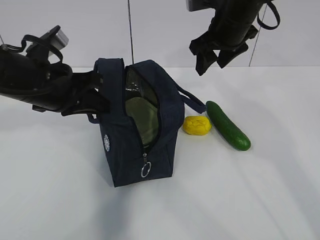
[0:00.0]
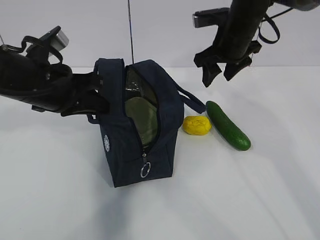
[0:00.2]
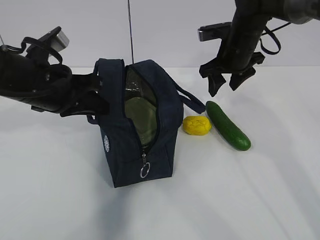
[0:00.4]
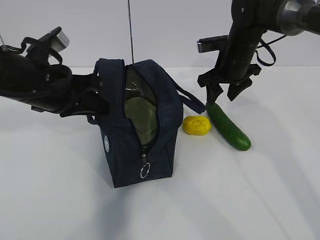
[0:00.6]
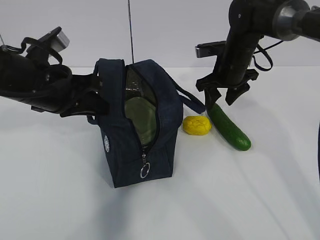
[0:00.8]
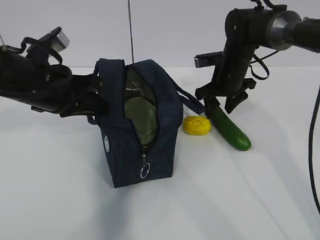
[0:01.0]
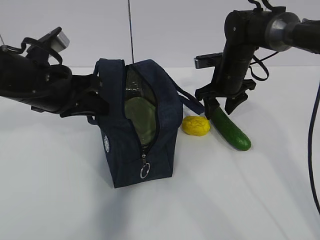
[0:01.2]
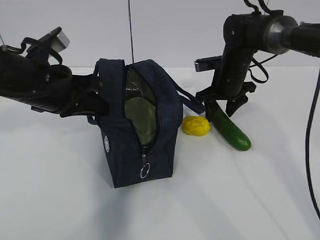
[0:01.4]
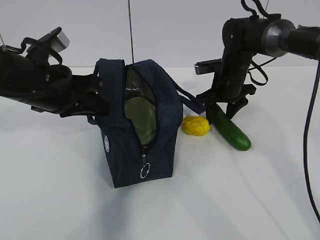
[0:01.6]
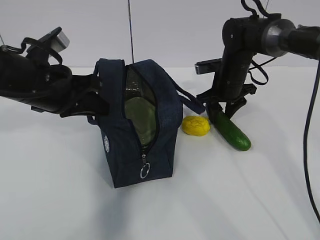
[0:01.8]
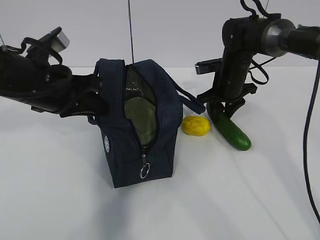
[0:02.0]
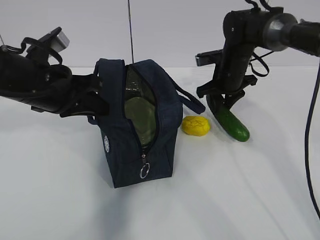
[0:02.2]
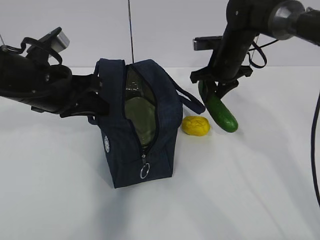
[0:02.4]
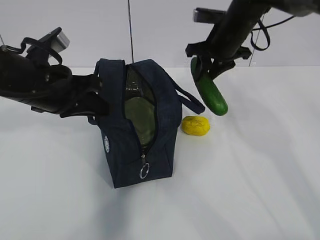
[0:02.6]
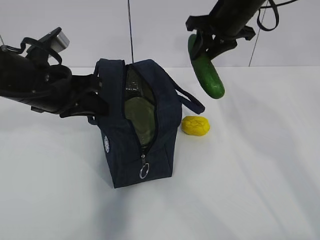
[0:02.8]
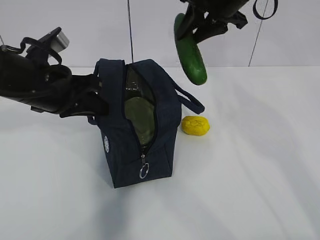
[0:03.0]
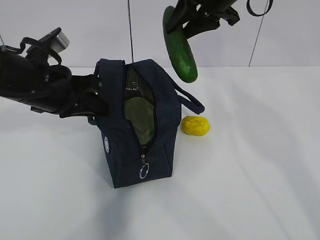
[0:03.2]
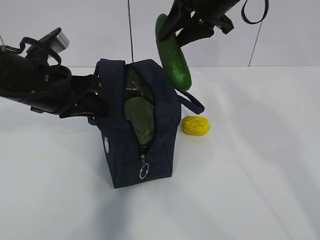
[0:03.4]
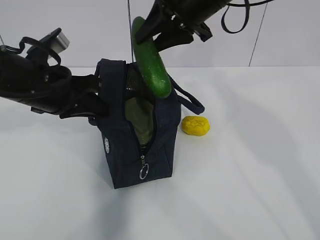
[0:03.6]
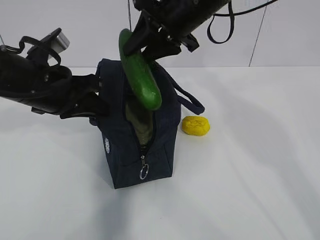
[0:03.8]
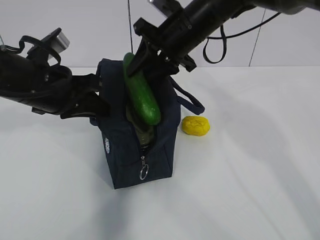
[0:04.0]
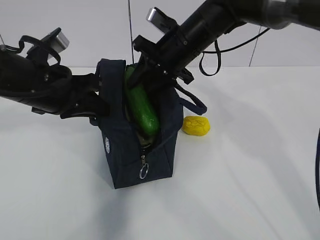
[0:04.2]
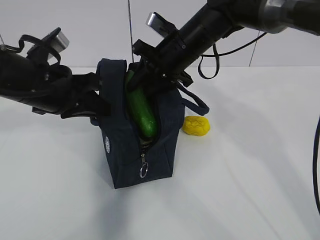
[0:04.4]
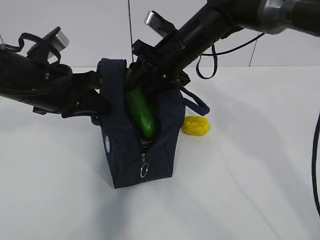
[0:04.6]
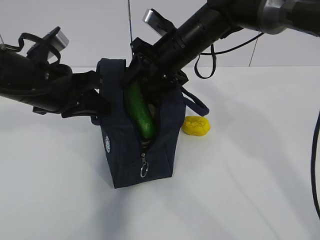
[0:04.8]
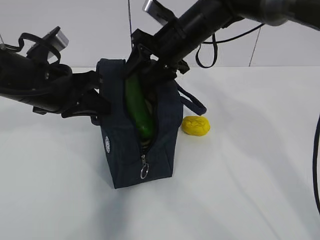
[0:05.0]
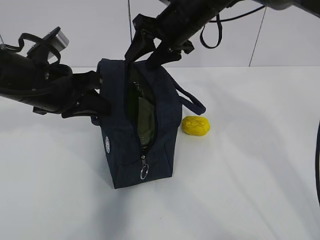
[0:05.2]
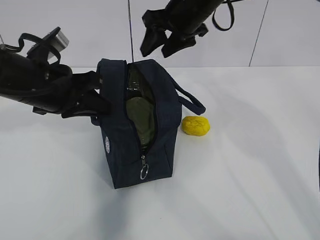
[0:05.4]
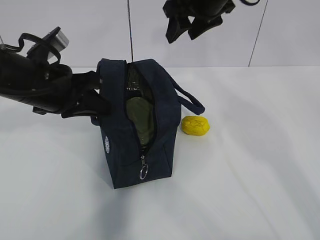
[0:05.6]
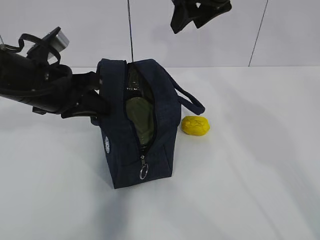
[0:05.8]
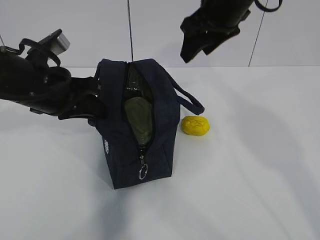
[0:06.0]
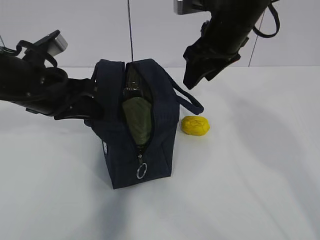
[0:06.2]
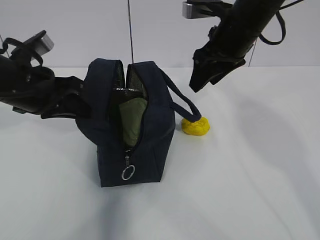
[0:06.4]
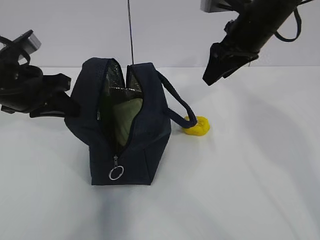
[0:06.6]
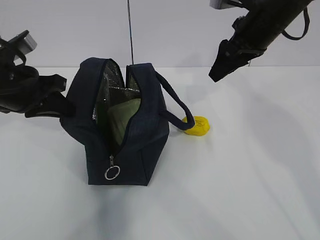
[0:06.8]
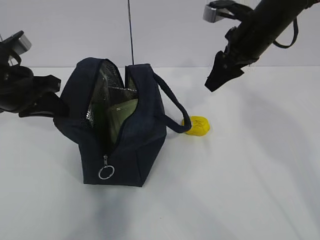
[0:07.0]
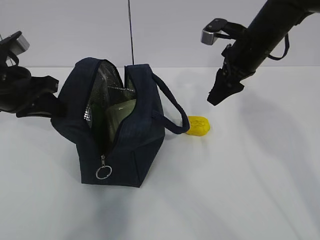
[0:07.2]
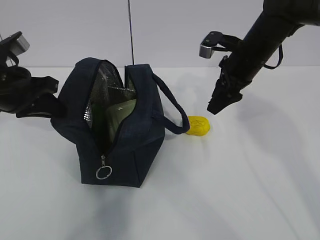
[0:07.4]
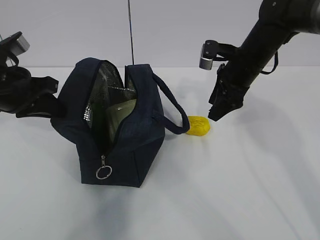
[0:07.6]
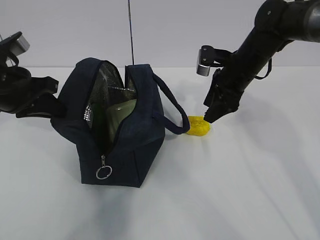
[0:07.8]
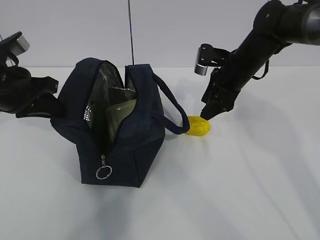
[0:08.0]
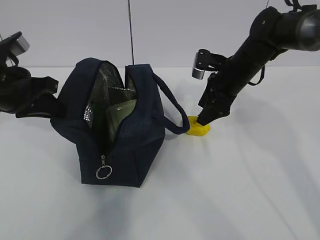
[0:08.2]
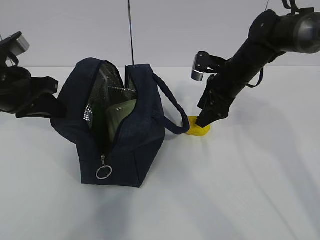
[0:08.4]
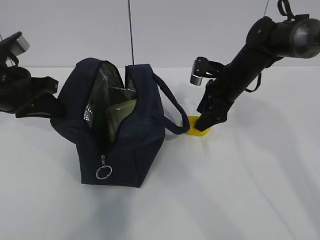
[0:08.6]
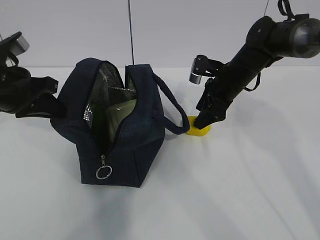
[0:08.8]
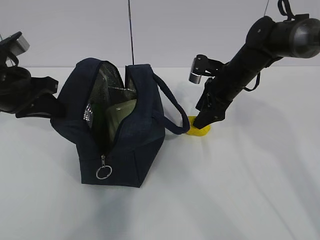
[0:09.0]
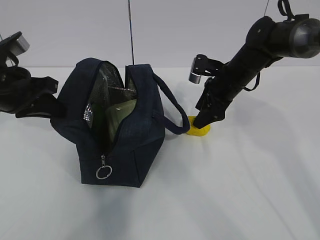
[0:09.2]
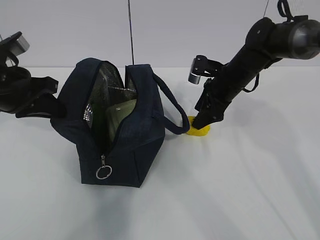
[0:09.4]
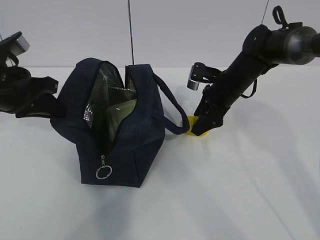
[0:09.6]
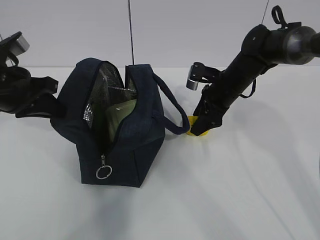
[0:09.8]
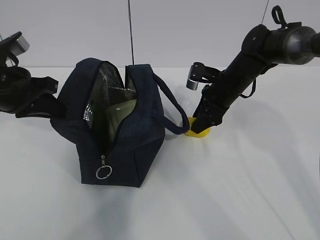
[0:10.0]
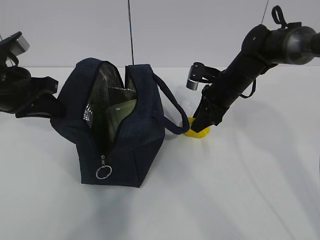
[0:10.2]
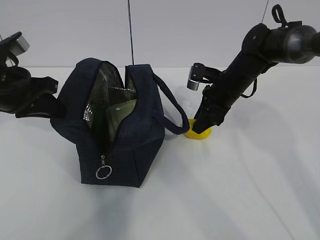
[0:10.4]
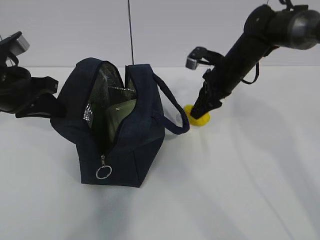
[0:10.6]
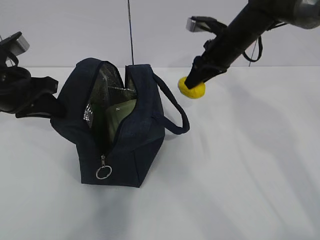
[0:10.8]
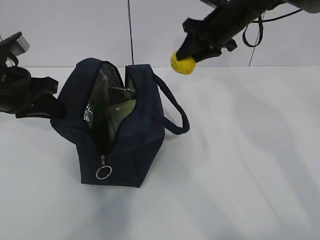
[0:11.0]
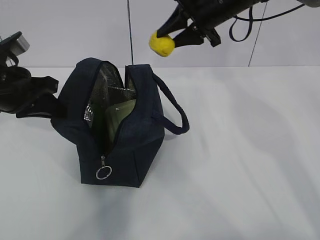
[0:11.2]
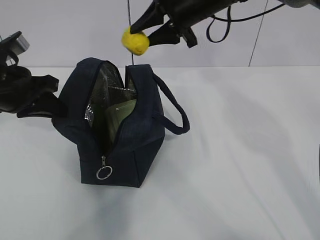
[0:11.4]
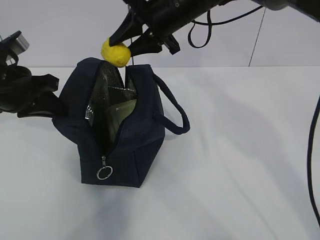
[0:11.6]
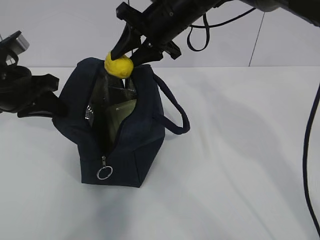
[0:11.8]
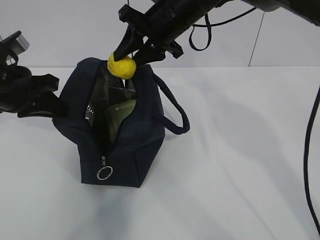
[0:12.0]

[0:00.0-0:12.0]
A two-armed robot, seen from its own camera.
Step, 0:00.6 to 0:04.4: Grab the lemon with your right hand.
Step, 0:04.6 to 0:06.6: Secure the lunch bag with your left hand.
Step, 0:06.8 to 0:08.0: Grab the lunch bag with your right hand.
Step, 0:08.2 to 0:10.8: Move the lunch bag to the right.
0:00.0 to 0:01.6: The right gripper heads downward, covering about 15 cm.
0:01.6 to 0:03.0: The right gripper heads upward, covering roughly 20 cm.
0:03.0 to 0:04.4: The right gripper moves downward and to the left, about 10 cm.
0:04.4 to 0:06.0: The right gripper is displaced upward and to the right by approximately 10 cm.
0:06.0 to 0:07.6: The right gripper shifts about 15 cm downward and to the right; the left gripper heads to the left, covering about 5 cm.
0:07.6 to 0:09.0: The right gripper goes some 5 cm downward.
0:09.0 to 0:10.4: The right gripper closes.
0:10.4 to 0:12.0: The right gripper travels upward and to the left by some 20 cm.

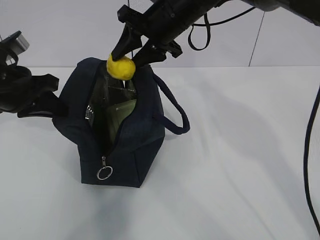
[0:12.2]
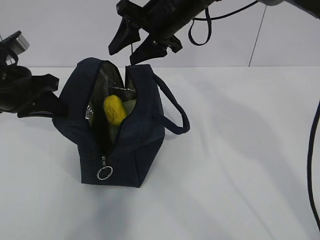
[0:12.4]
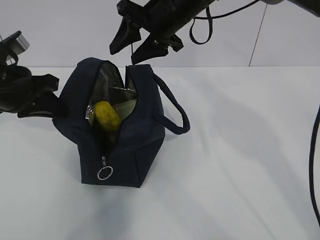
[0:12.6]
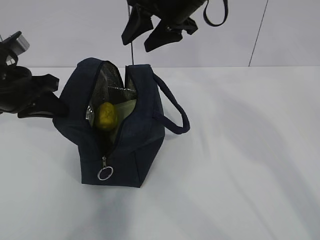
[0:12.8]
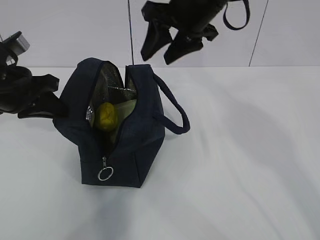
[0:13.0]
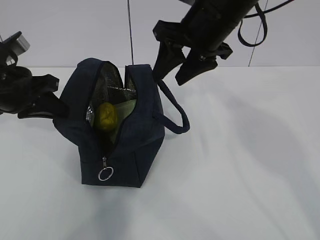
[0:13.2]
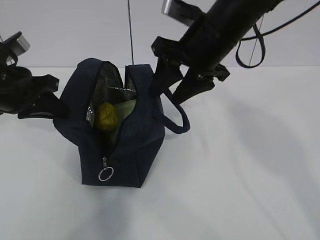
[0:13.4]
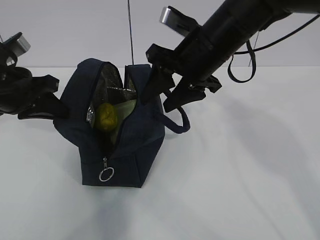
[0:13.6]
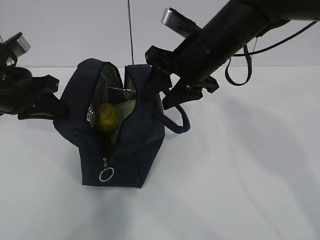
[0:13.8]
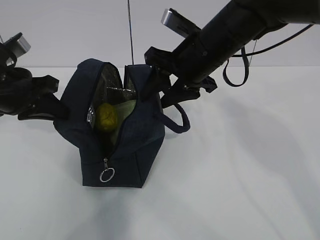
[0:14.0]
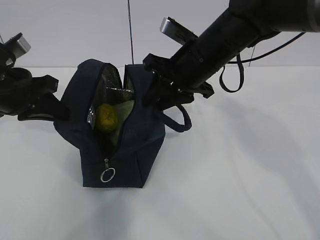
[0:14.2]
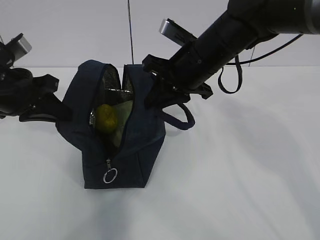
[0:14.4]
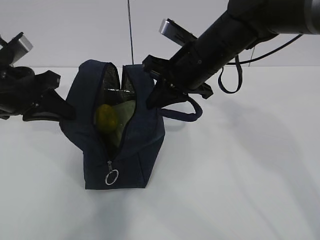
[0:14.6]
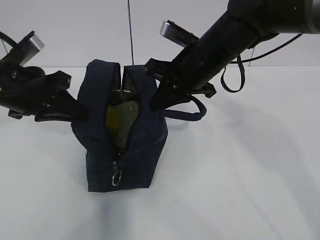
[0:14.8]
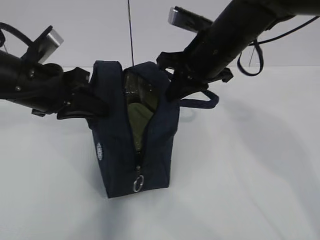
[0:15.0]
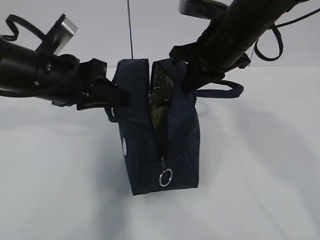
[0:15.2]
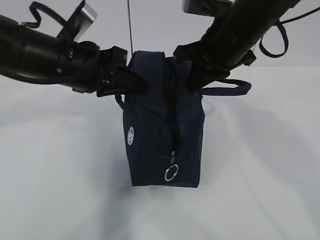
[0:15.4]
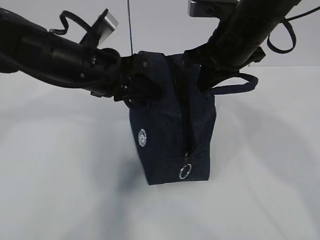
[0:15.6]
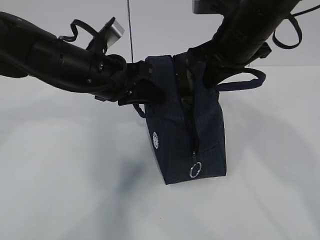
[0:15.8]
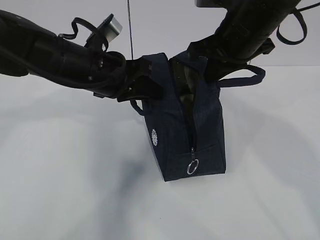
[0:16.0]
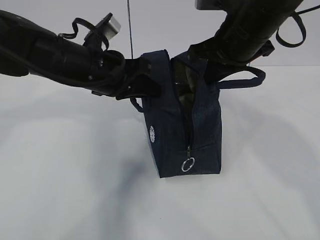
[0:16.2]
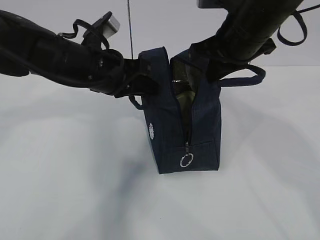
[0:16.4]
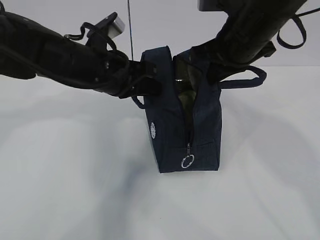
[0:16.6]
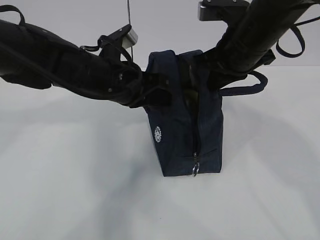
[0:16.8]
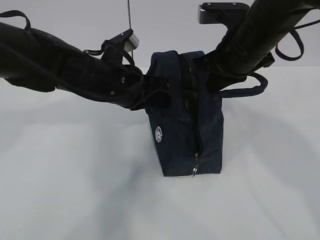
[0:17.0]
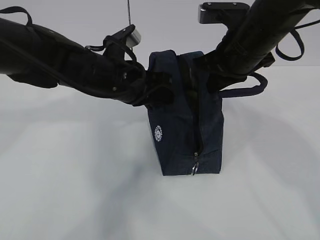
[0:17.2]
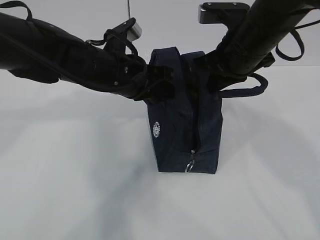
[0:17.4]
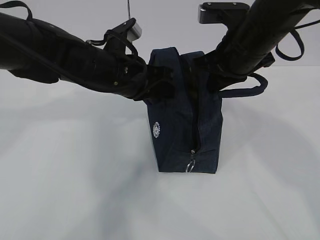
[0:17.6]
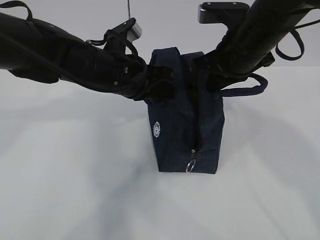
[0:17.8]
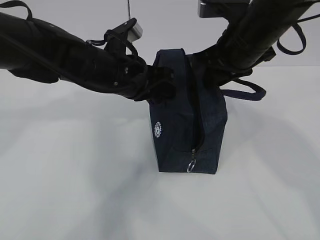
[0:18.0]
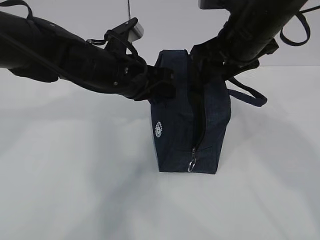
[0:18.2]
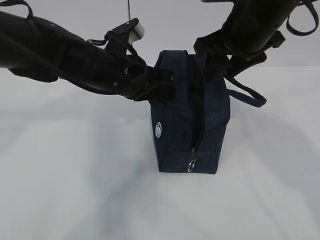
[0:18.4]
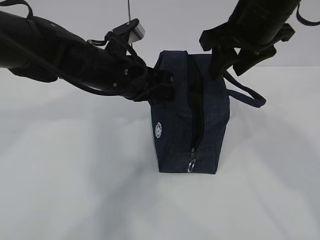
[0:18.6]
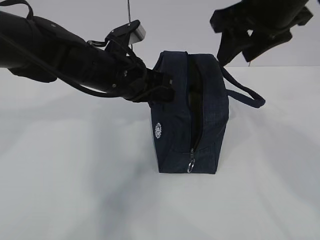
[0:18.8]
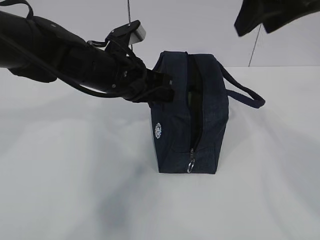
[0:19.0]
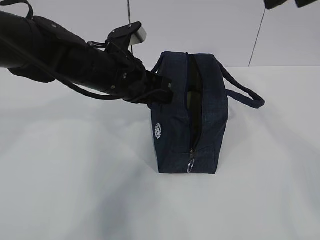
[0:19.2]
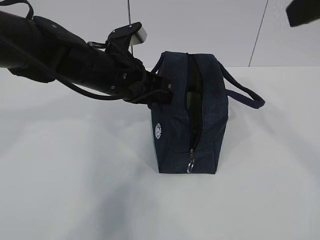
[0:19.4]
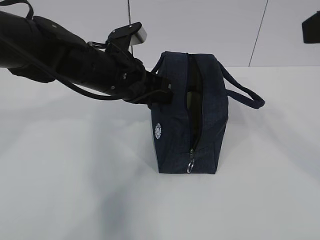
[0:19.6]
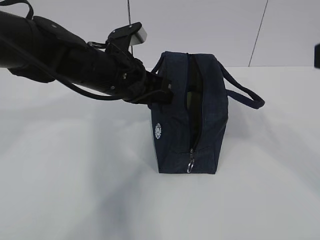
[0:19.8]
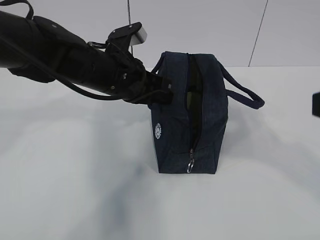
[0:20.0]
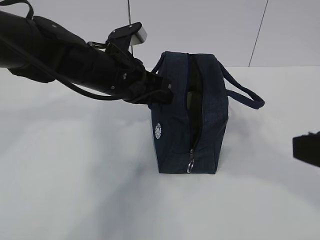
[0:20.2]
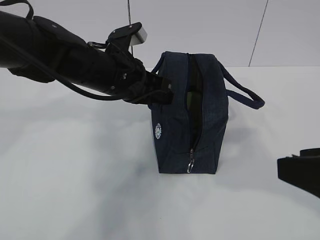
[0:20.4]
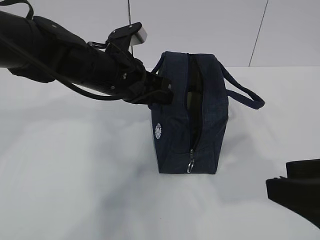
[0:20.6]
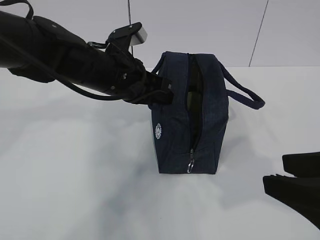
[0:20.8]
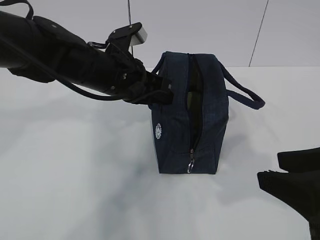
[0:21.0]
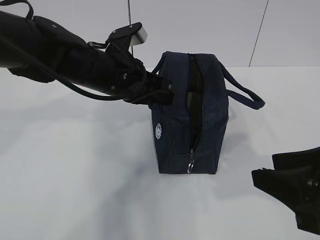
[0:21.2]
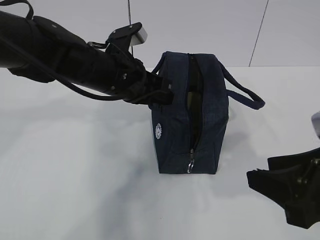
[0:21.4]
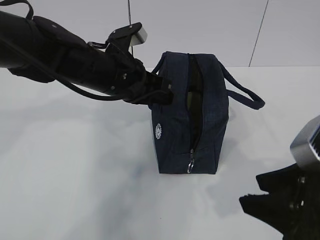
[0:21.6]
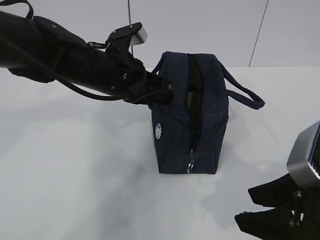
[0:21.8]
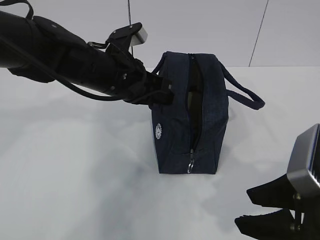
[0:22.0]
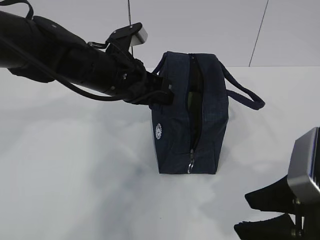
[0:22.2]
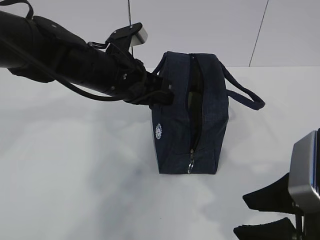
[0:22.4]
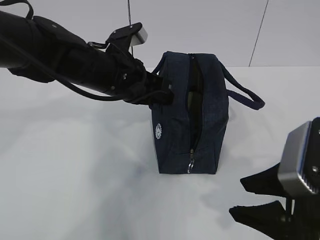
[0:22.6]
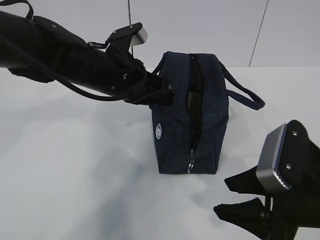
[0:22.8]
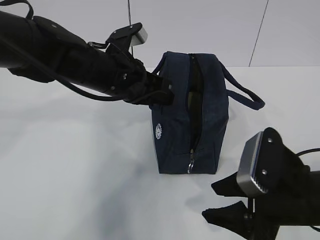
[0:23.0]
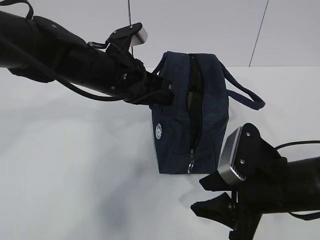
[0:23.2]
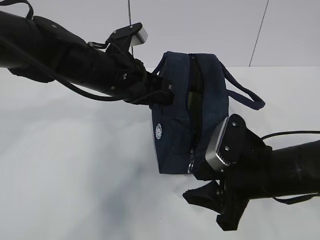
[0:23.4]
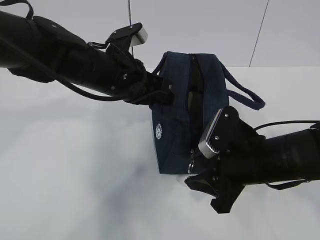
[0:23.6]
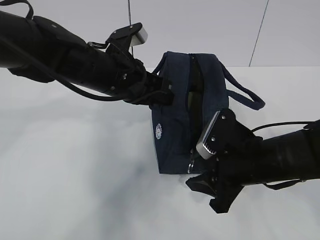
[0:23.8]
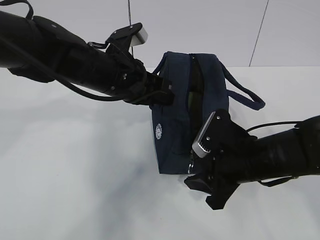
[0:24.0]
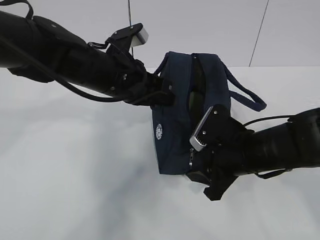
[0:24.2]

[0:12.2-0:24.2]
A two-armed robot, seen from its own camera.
Step, 0:12.2 to 0:22.2: Grab the lunch bag with your left hand.
0:12.2 to 0:13.8: The right gripper heads backward, covering roughly 10 cm.
0:13.8 to 0:15.2: The left gripper moves to the right, roughly 10 cm. The right gripper closes.
0:15.2 to 0:16.6: The left gripper heads to the right, covering some 5 cm.
0:16.6 to 0:18.2: The right gripper opens up.
0:18.2 to 0:19.8: The right gripper shifts approximately 20 cm backward.
0:19.8 to 0:21.2: The right gripper heads downward, covering roughly 15 cm.
0:22.6 to 0:24.2: The right gripper heads forward and downward, covering roughly 15 cm.
